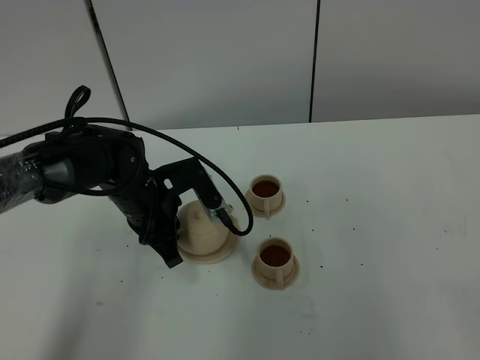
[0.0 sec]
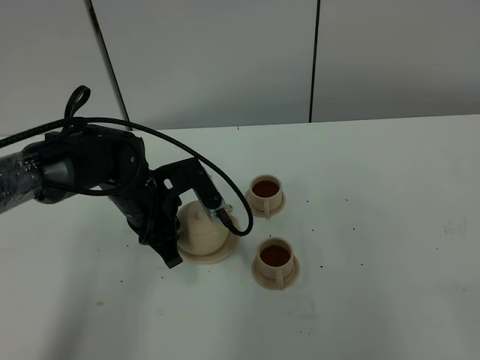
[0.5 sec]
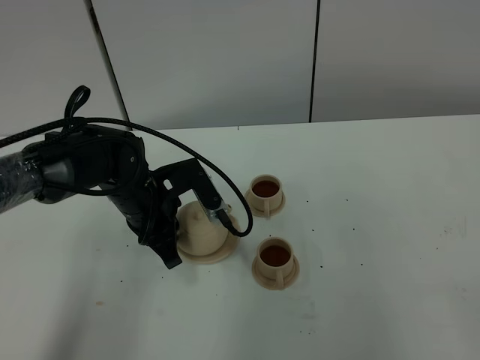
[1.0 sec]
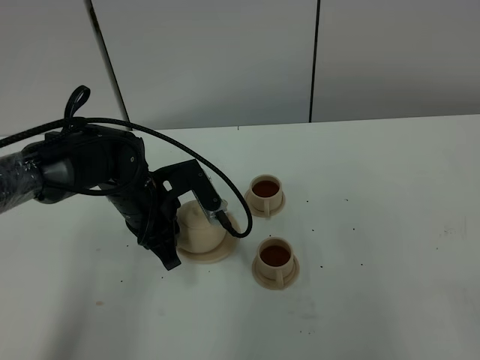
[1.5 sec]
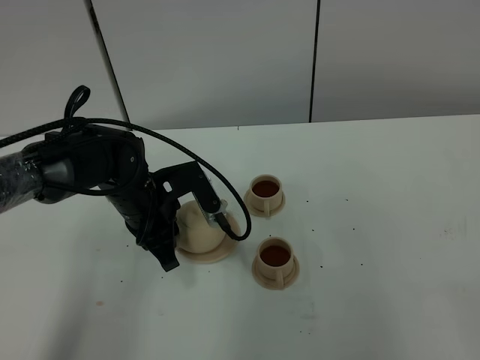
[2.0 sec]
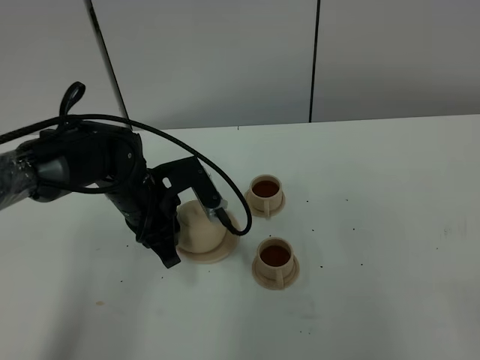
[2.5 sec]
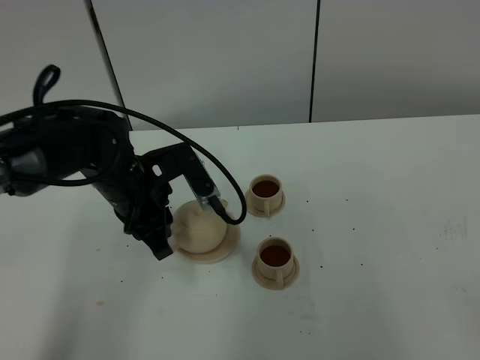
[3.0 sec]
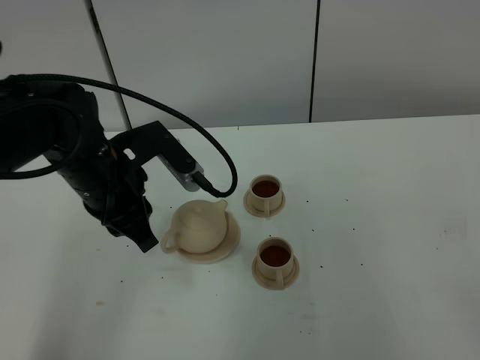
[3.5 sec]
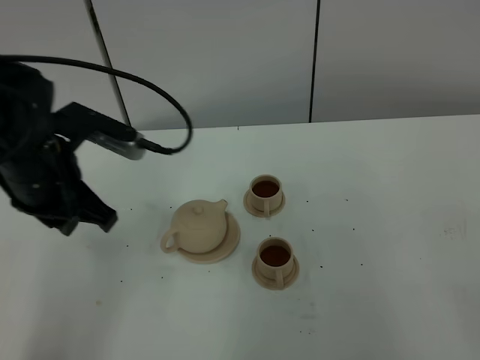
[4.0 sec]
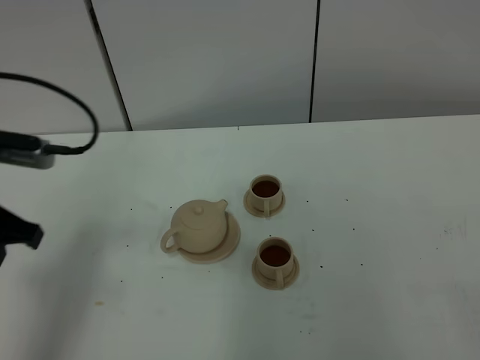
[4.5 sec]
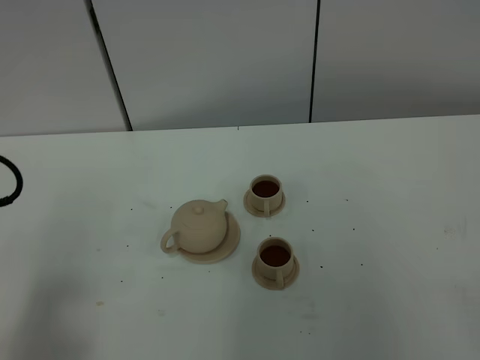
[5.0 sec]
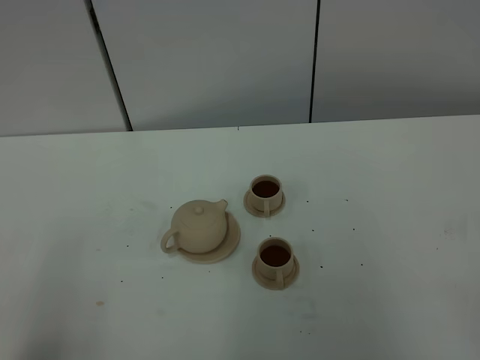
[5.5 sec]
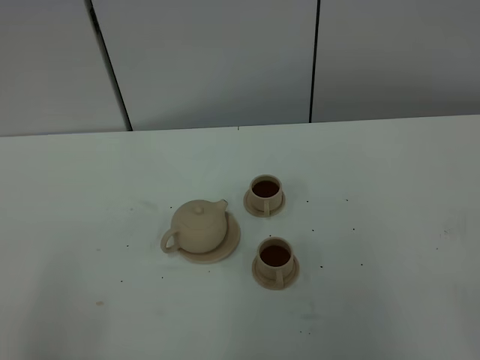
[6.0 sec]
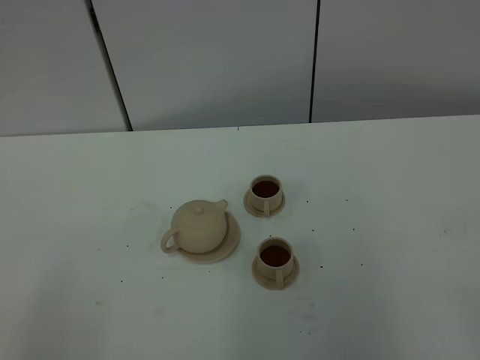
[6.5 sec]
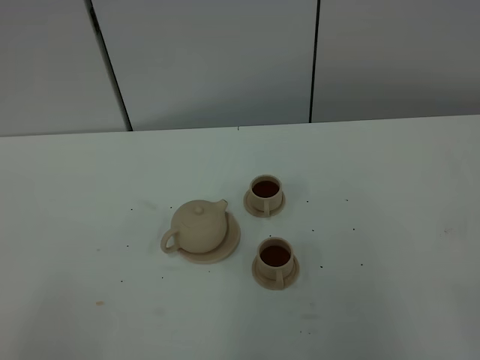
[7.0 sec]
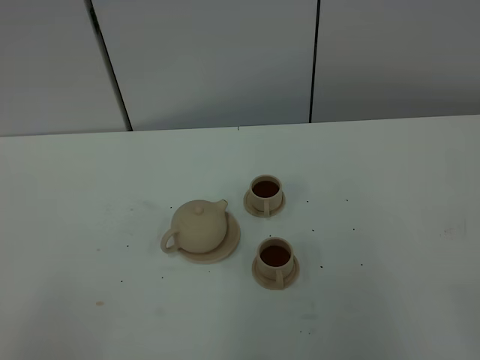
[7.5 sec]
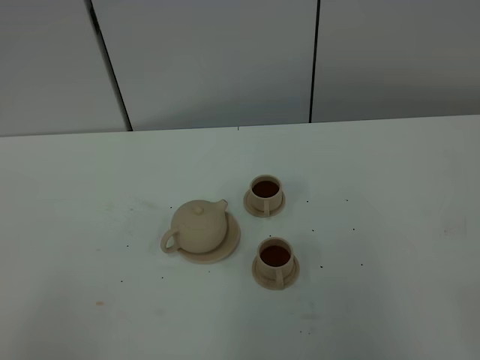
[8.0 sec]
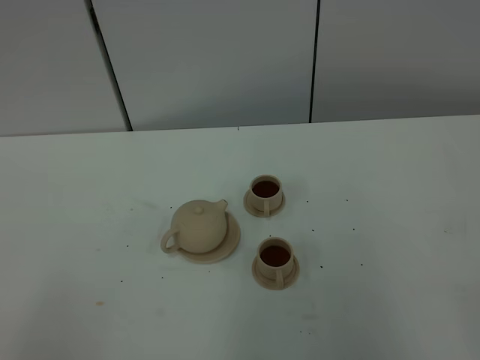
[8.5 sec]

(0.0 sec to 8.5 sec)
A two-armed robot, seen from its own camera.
Task of the whole recording: grasp the brown teapot and pour the tea into the two brown teacups one by one, put the brown teapot back in its original place.
0.0 sec - 2.0 sec: The left gripper opens up.
2.0 sec - 4.0 sec: The left gripper moves upward, to the left and backward, some 15 cm.
4.0 sec - 6.5 sec: The left gripper shifts about 30 cm backward, and opens its fingers.
